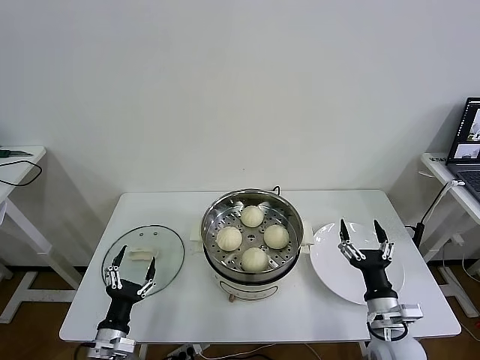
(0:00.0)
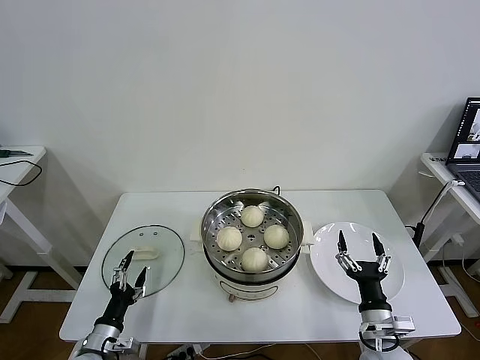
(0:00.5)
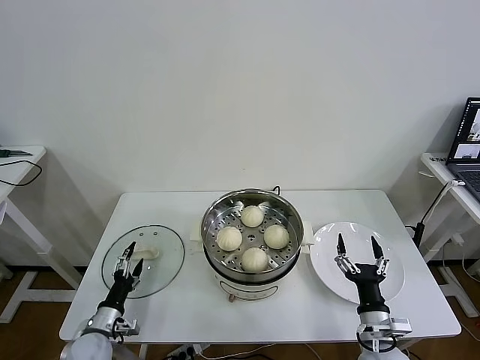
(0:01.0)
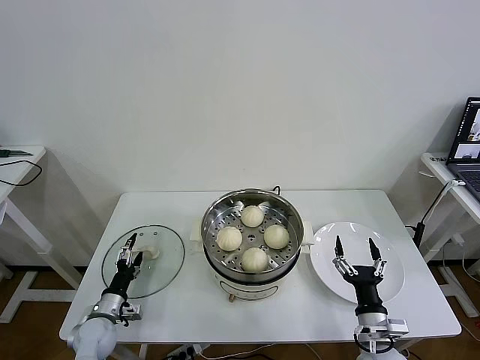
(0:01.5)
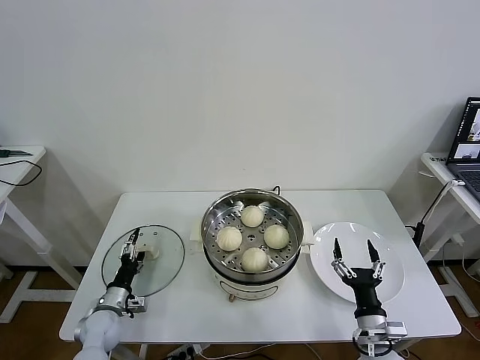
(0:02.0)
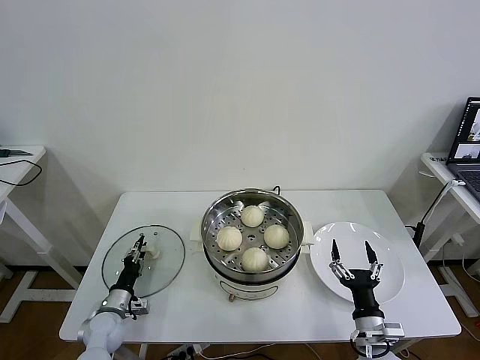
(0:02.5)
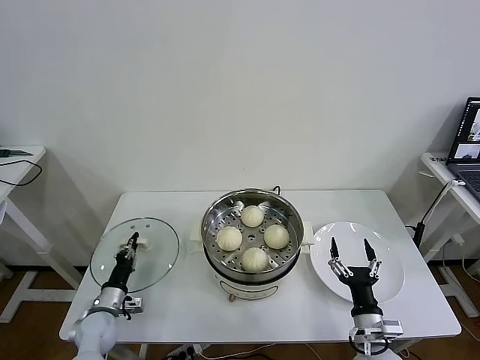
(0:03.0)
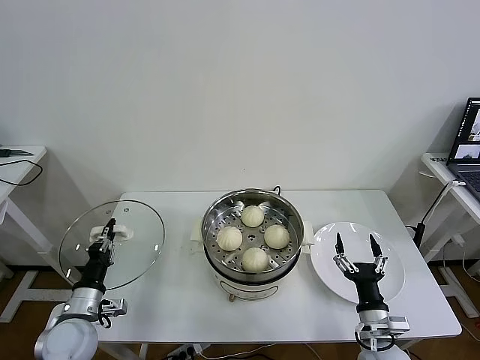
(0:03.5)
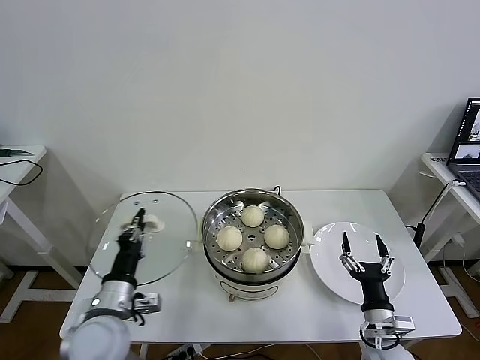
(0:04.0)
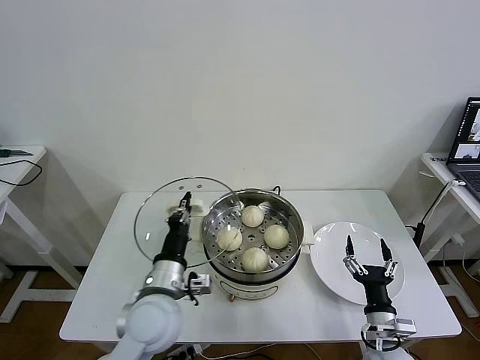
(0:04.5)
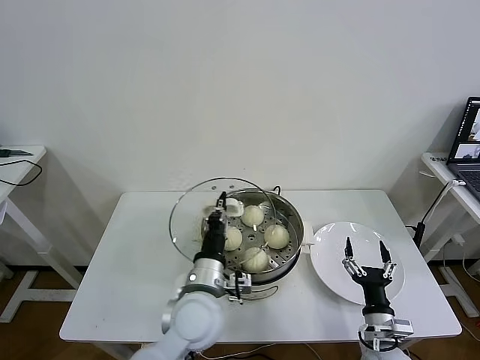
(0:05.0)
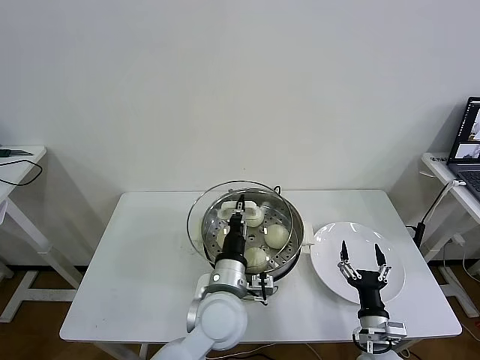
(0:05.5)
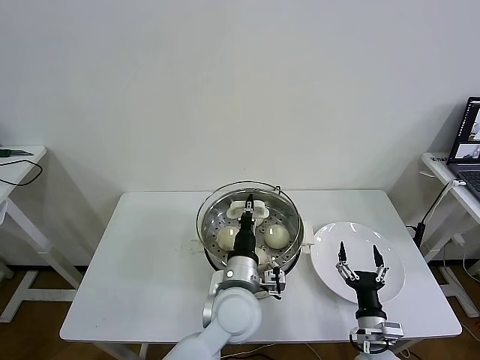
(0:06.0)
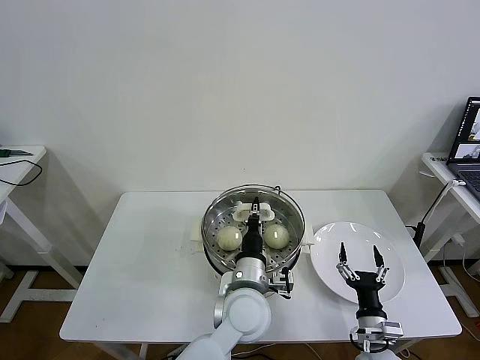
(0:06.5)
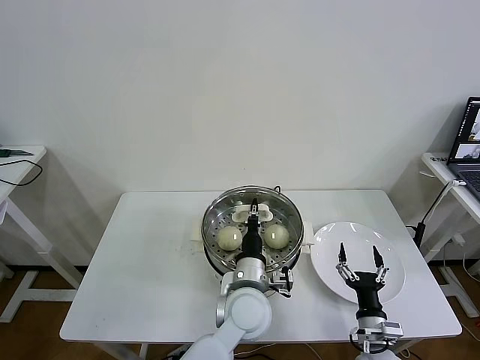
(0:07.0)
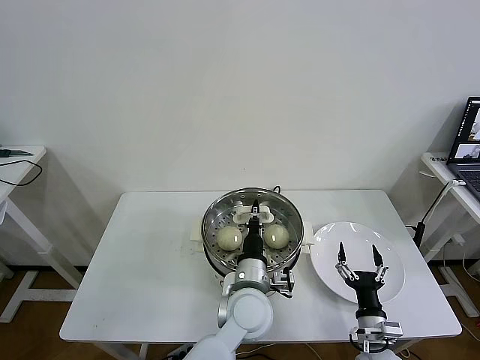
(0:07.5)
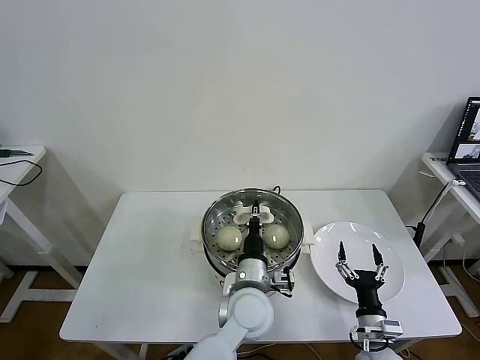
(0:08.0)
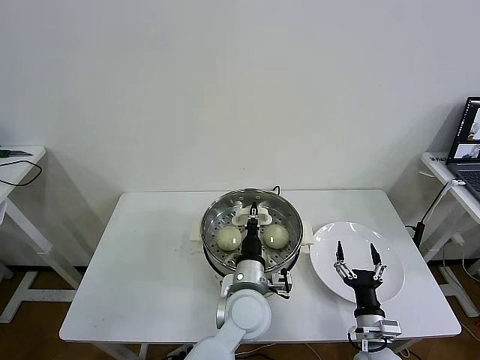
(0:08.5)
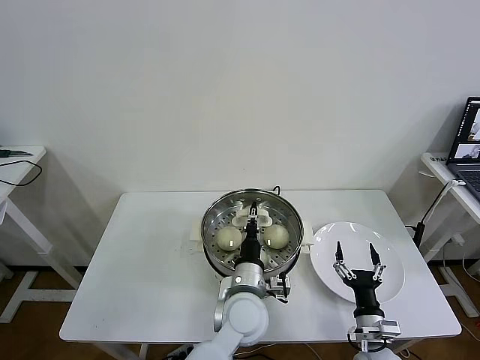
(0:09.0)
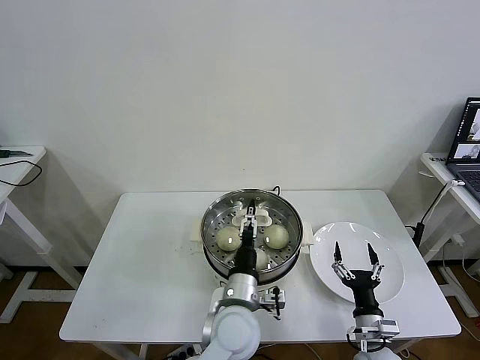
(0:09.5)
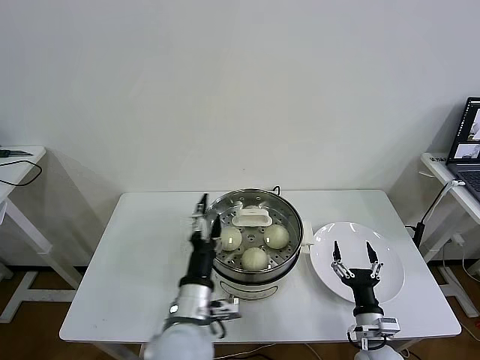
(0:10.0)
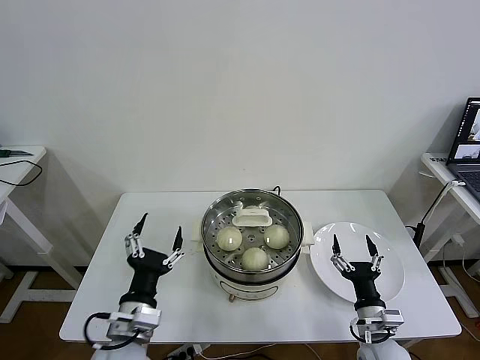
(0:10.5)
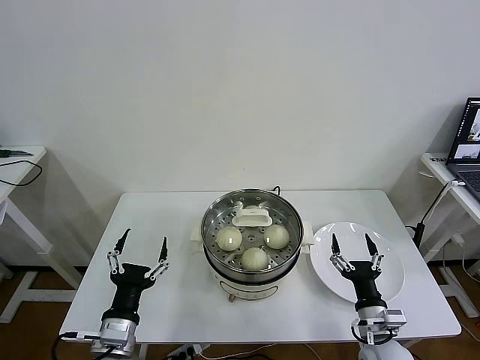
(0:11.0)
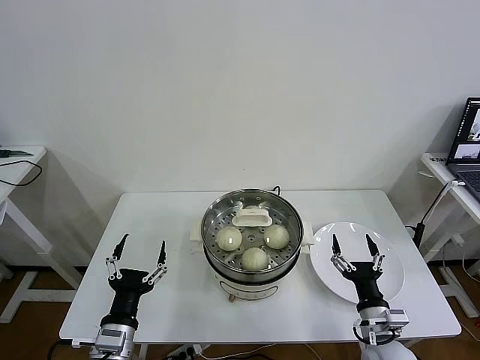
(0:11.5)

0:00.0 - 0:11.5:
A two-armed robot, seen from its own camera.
Task of the whole recording: take steamed baozi put them in steamer then cover it.
Step, 0:00.0 - 0:02.5: Grasp the pot lid with left gripper.
Step, 0:03.0 - 0:09.5: Place the pot lid on the steamer with left gripper.
0:00.0 - 0:02.0: The right gripper moves approximately 5 cm; the left gripper heads forward, downward and to the left, covering approximately 15 cm.
0:02.0 - 0:04.0: The left gripper heads upward and to the right, covering approximately 20 cm, and closes up.
0:04.0 - 0:06.0: The left gripper moves to the right, some 25 cm.
0:06.0 - 0:07.5: The grippers move only a little.
0:07.5 - 0:09.5: The left gripper opens its fingers.
0:09.5 - 0:11.5: The left gripper heads to the left and backward, covering roughly 25 cm. Meanwhile the right gripper heads upward, covering some 5 cm.

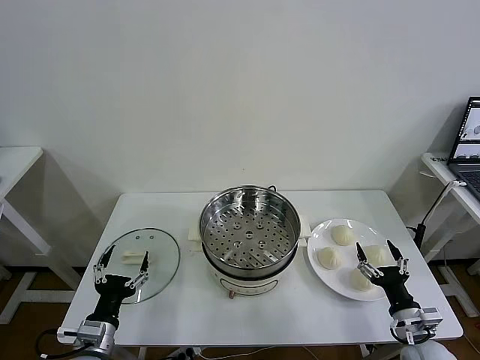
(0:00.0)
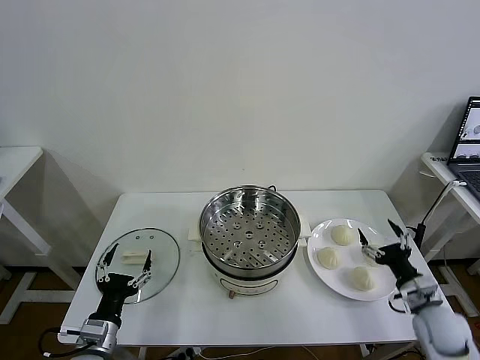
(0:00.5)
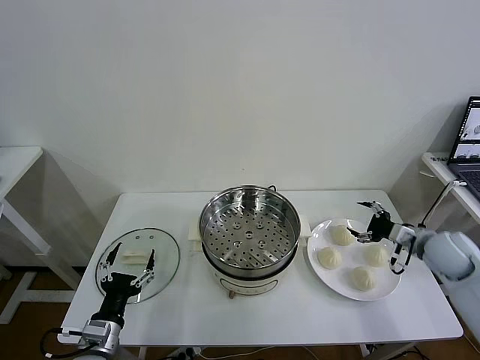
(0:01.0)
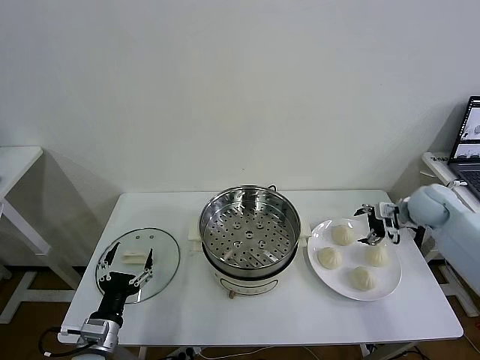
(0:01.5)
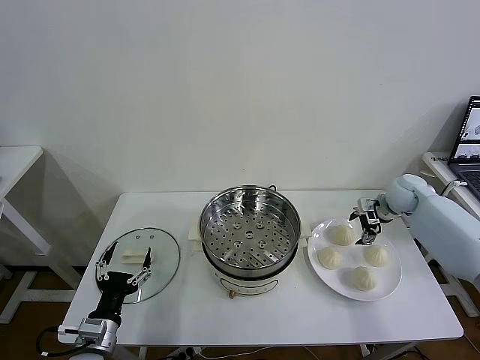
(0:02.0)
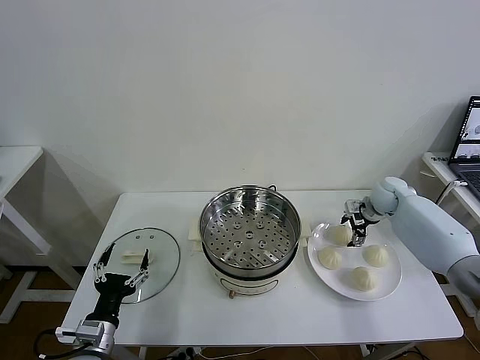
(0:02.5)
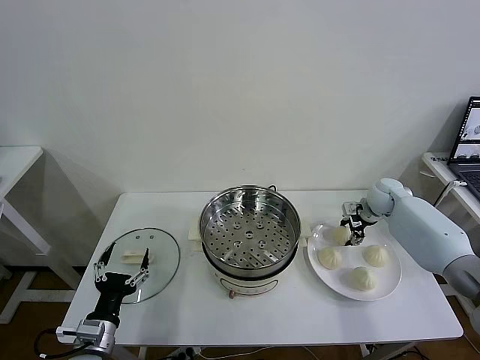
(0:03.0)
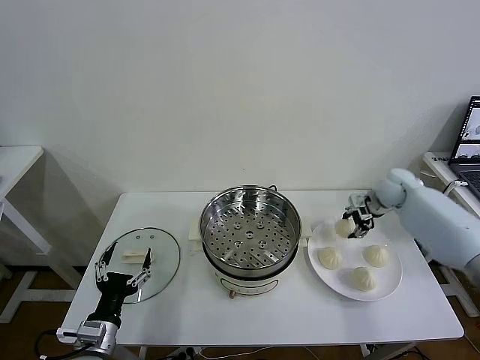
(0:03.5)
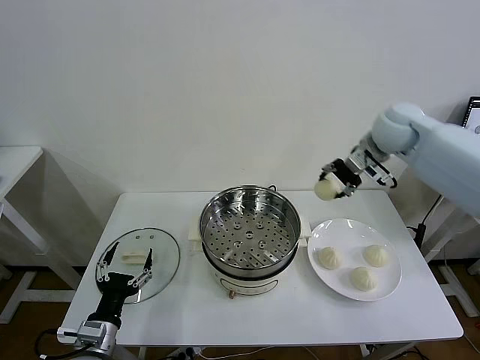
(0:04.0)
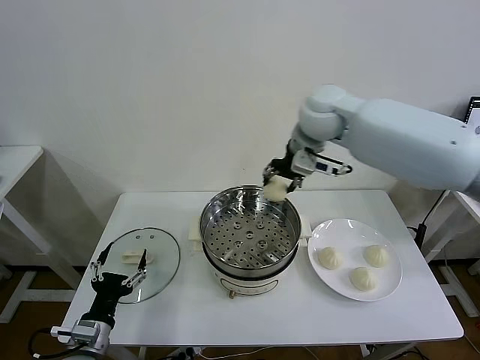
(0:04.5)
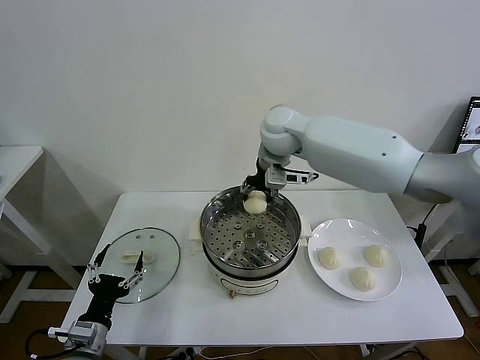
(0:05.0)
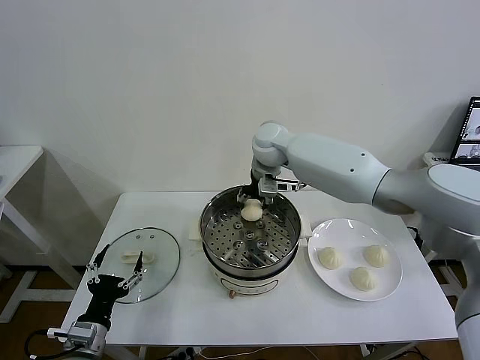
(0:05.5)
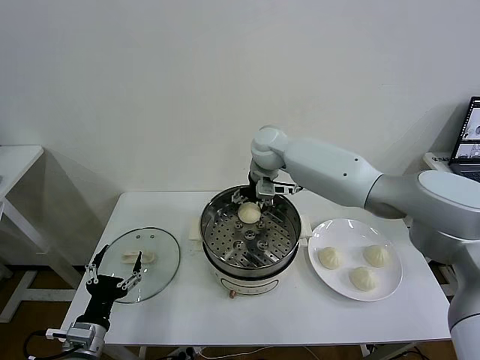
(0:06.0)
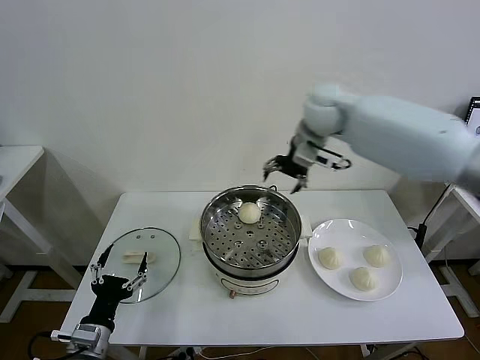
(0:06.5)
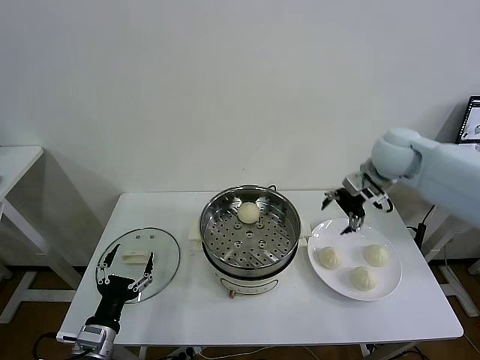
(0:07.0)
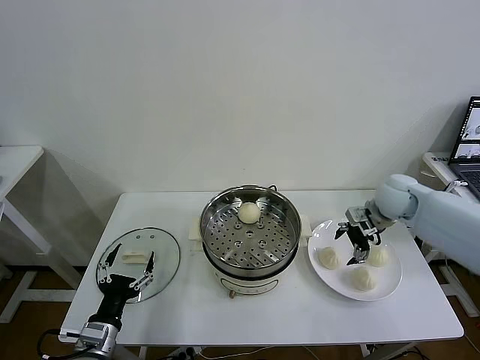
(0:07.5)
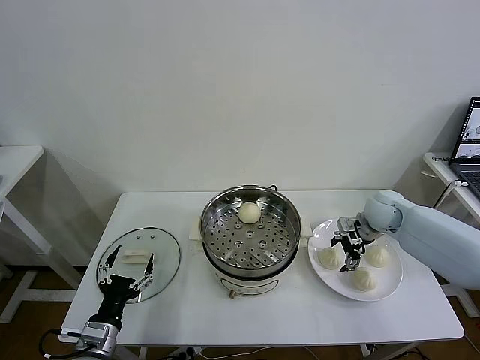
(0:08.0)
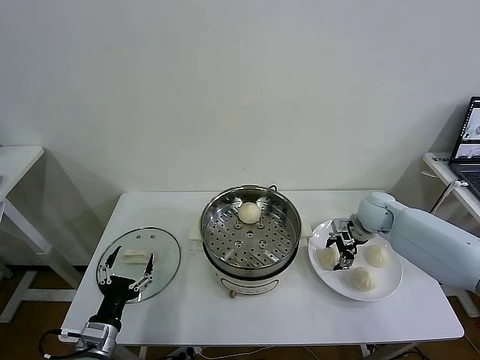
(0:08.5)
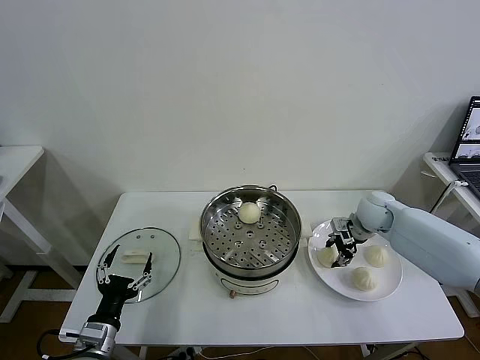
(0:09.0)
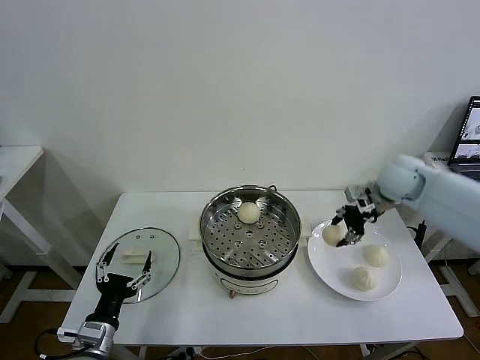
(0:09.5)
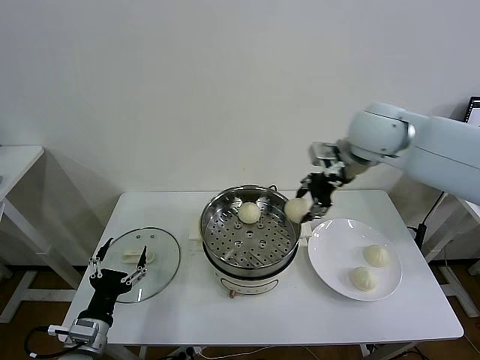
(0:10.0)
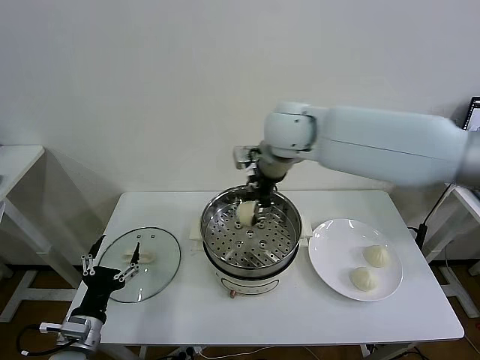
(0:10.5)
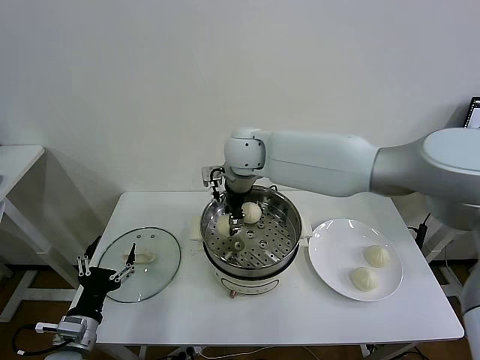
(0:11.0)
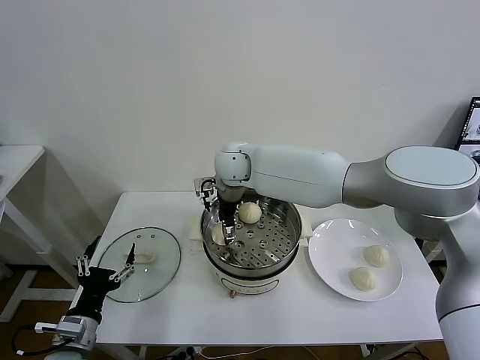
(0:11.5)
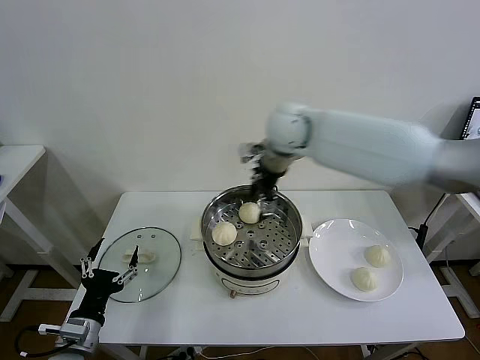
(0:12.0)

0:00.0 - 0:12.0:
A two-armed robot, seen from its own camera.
Task of the whole recording: take steamed baozi put them in steamer then cover it.
Step, 0:00.0 - 0:03.0: Grasp the baozi in the plate with right gripper.
Step, 0:03.5 - 0:05.5: Place the baozi on the steamer with right gripper.
Step, 0:06.0 - 0:08.5: Grasp the baozi in the plate with right gripper.
Step, 0:09.0 - 0:11.5: Place the baozi on the steamer with right gripper.
0:02.0 - 0:04.0: The right gripper goes about 25 cm upward and to the left, and closes up.
0:04.0 - 0:06.0: The right gripper travels to the left and downward by some 25 cm, and opens.
0:06.0 - 0:08.0: The right gripper is displaced to the right and downward by approximately 30 cm.
0:08.0 - 0:10.0: The right gripper shifts some 30 cm upward and to the left, and closes up.
0:10.0 - 0:12.0: The right gripper goes roughly 10 cm to the left and forward, and opens up.

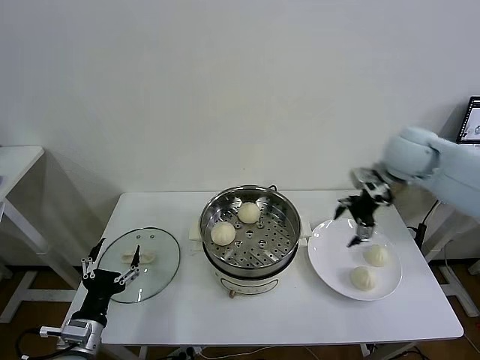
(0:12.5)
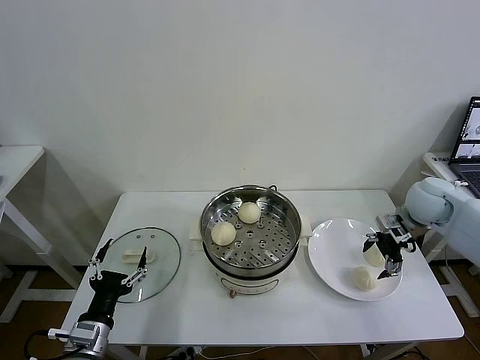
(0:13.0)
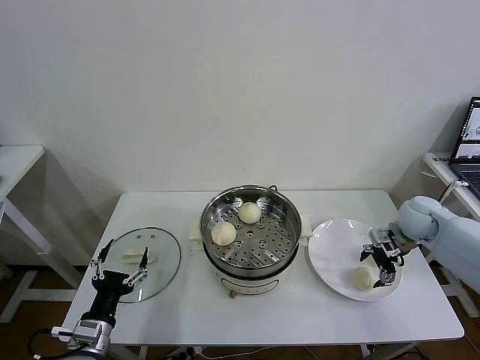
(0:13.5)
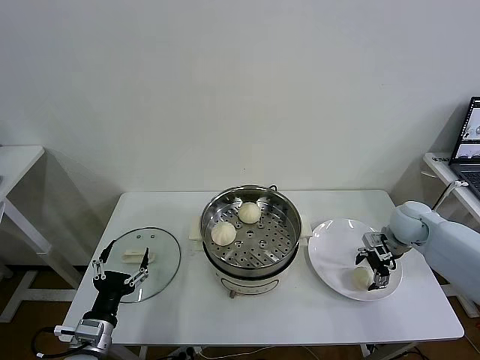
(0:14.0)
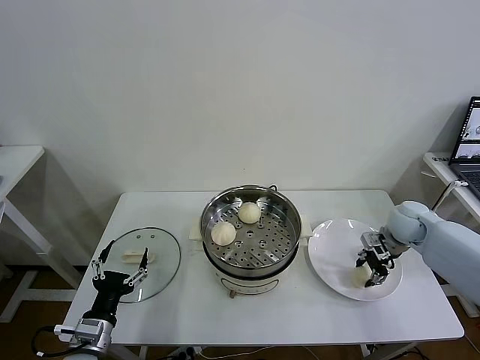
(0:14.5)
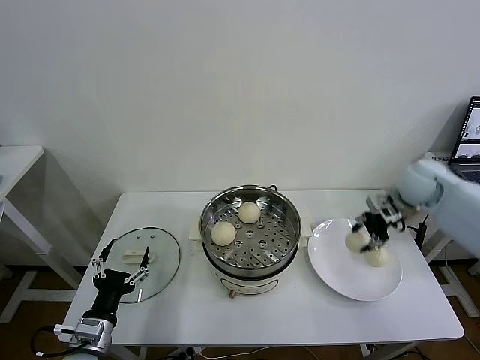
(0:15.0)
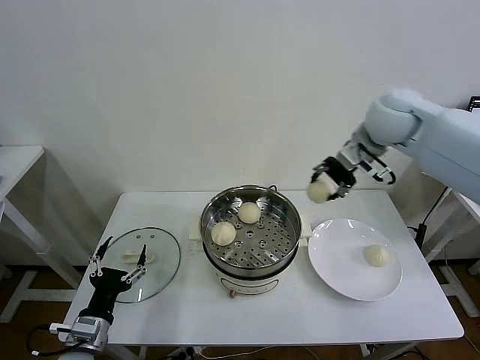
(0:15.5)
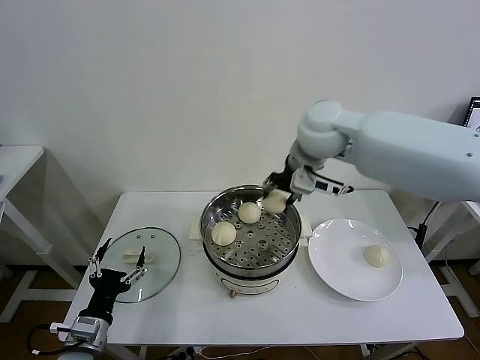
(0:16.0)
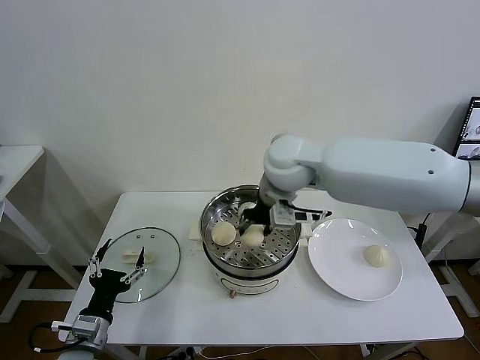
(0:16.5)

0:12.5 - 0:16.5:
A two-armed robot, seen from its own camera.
Task of the whole recording: take steamed baozi put them in steamer then cover it.
Step, 0:12.5 - 0:14.0: Grasp the baozi in the plate with right gripper.
0:12.5 - 0:14.5: The right gripper moves downward, approximately 20 cm, and closes up.
0:14.5 - 0:16.5: The right gripper travels to the left and upward by roughly 40 cm.
